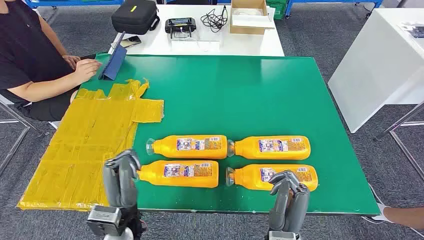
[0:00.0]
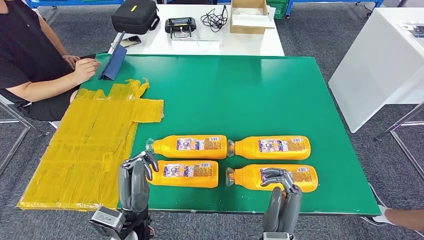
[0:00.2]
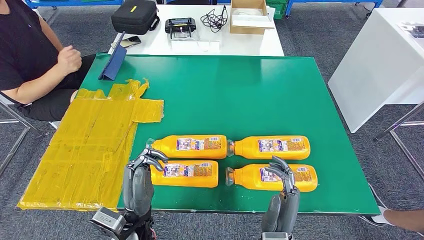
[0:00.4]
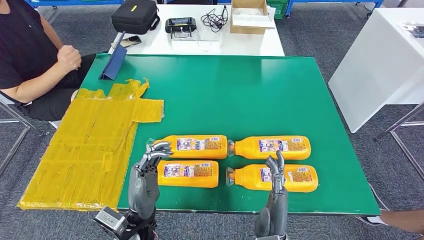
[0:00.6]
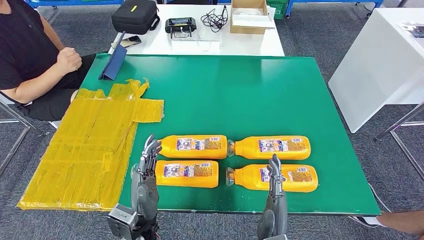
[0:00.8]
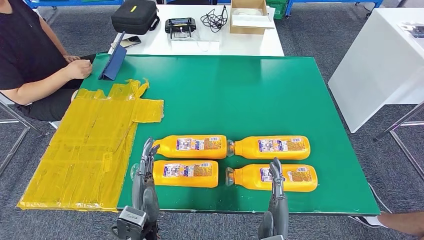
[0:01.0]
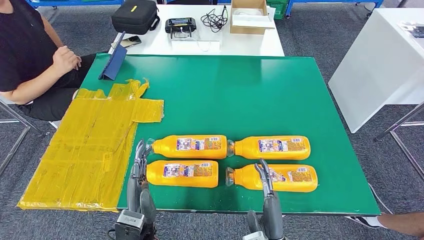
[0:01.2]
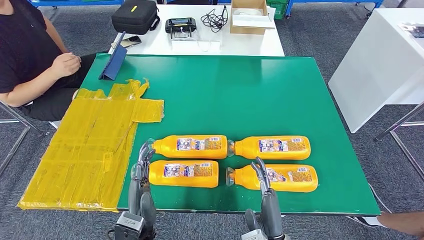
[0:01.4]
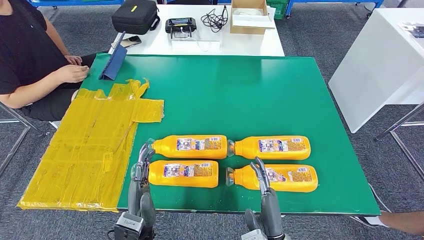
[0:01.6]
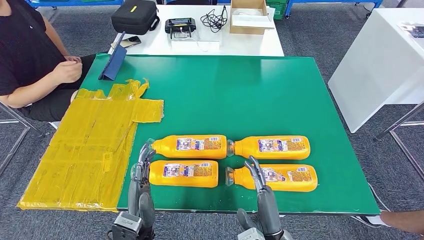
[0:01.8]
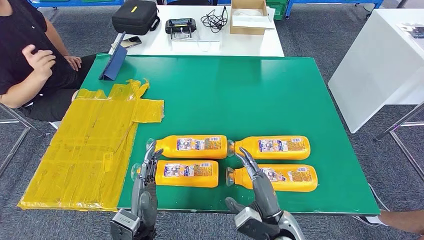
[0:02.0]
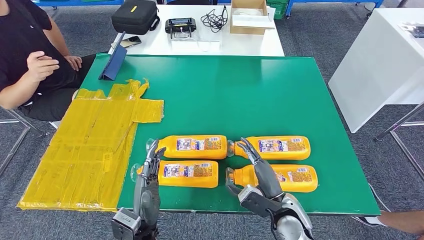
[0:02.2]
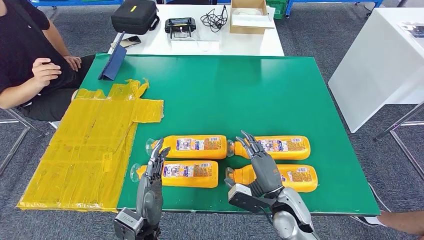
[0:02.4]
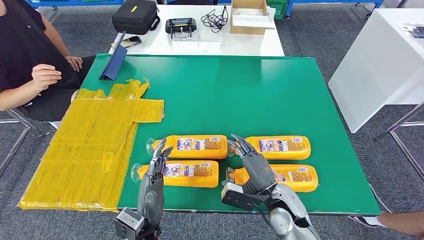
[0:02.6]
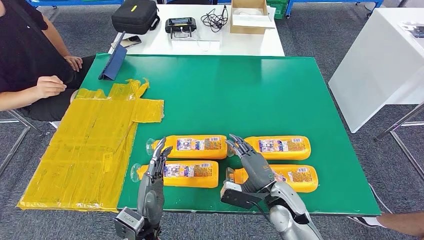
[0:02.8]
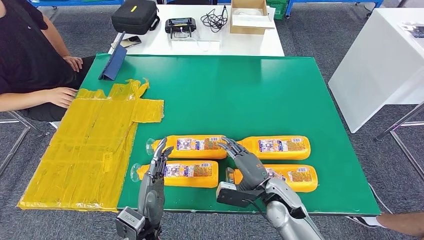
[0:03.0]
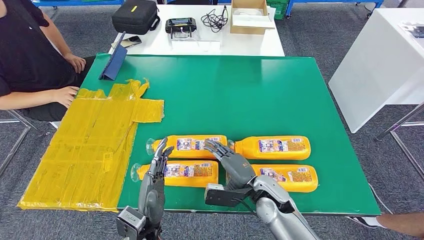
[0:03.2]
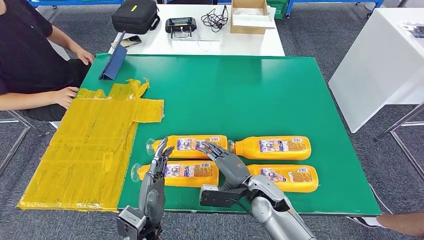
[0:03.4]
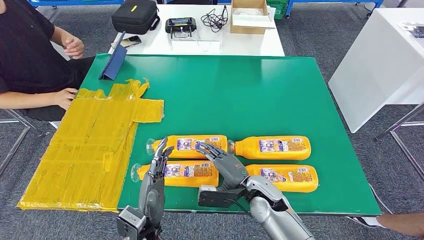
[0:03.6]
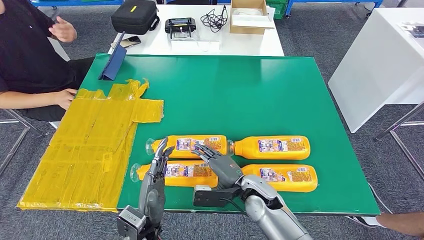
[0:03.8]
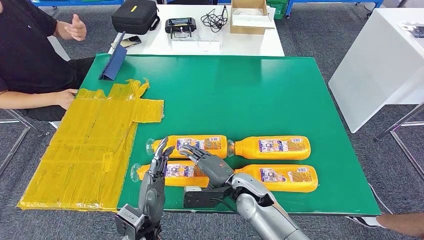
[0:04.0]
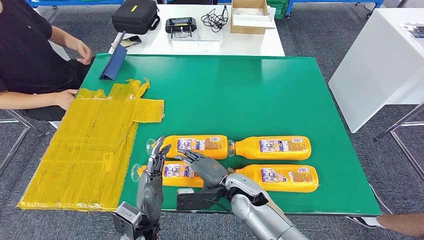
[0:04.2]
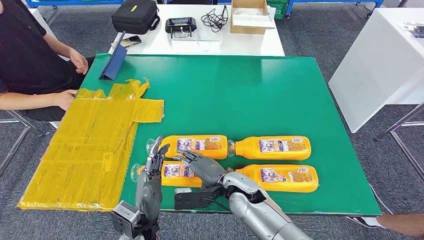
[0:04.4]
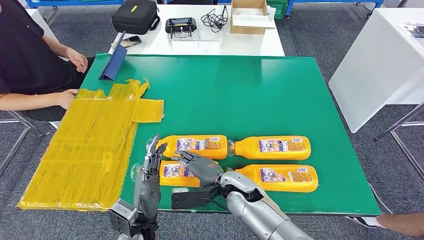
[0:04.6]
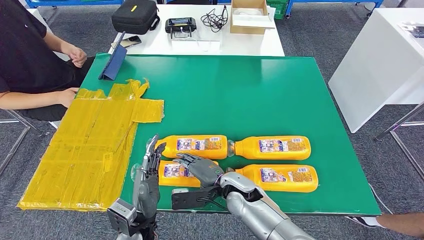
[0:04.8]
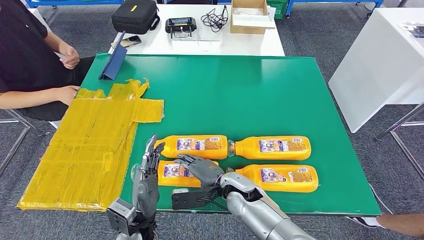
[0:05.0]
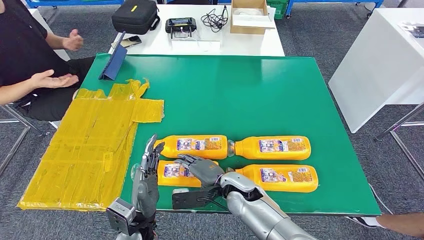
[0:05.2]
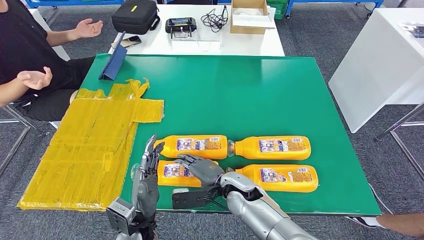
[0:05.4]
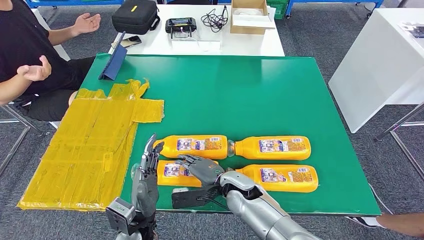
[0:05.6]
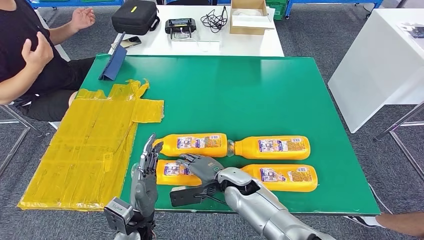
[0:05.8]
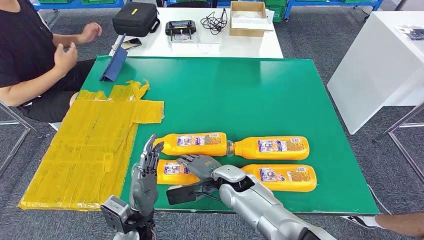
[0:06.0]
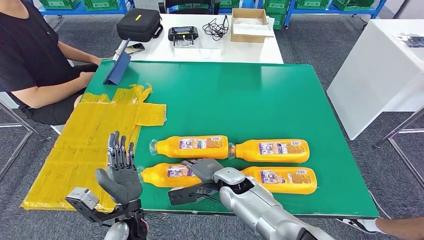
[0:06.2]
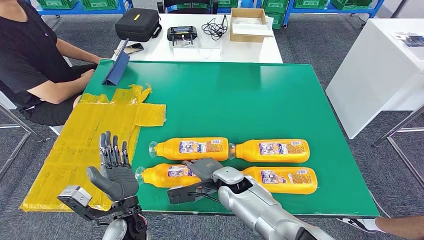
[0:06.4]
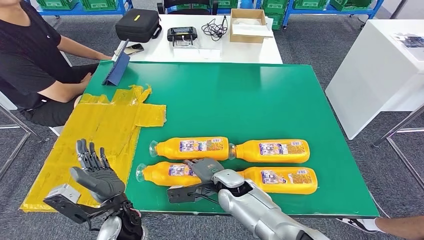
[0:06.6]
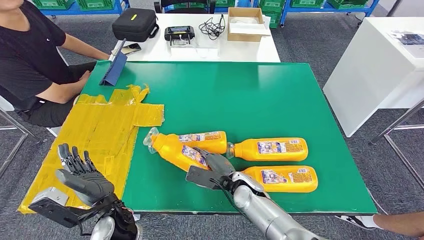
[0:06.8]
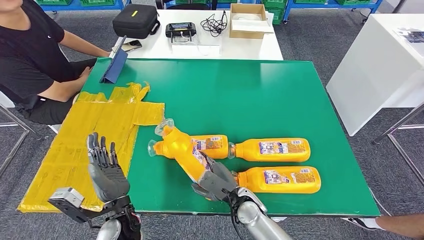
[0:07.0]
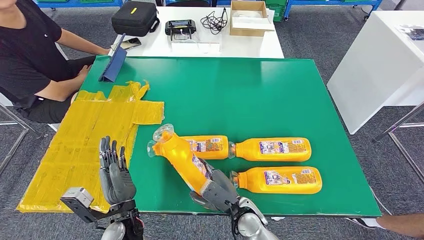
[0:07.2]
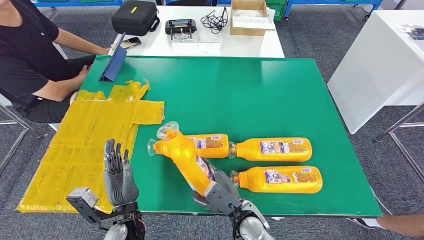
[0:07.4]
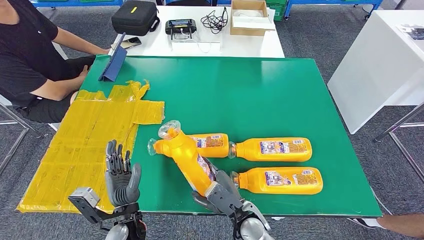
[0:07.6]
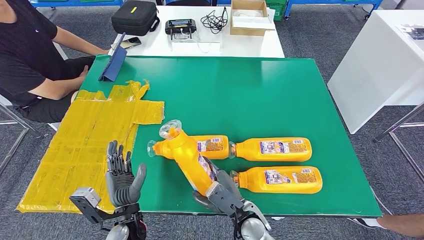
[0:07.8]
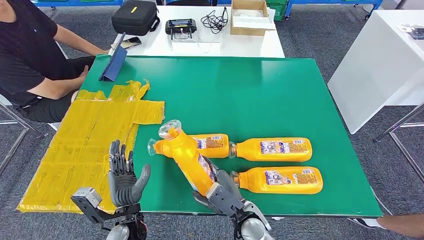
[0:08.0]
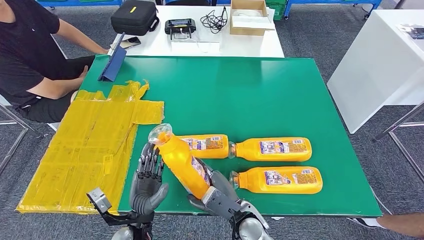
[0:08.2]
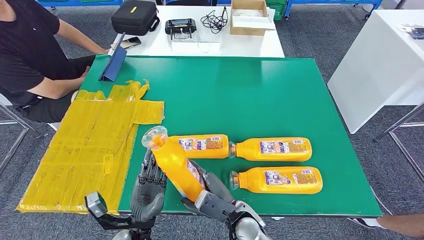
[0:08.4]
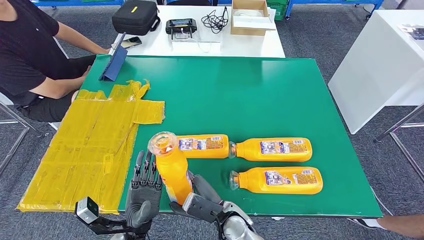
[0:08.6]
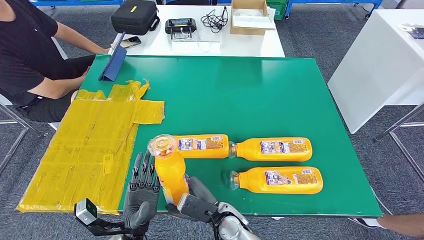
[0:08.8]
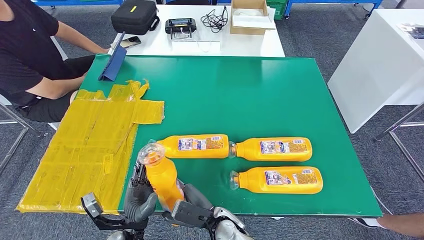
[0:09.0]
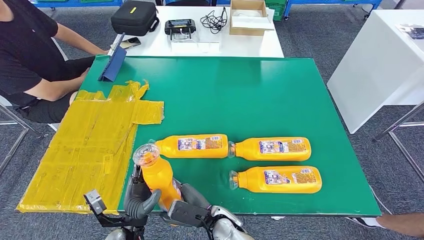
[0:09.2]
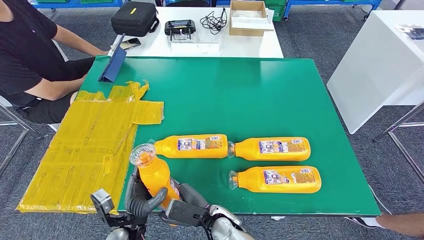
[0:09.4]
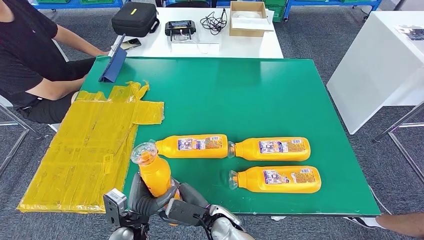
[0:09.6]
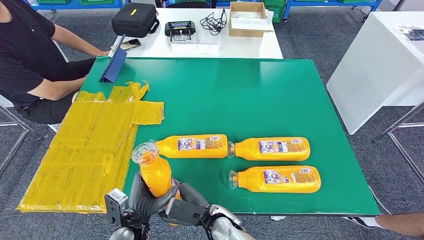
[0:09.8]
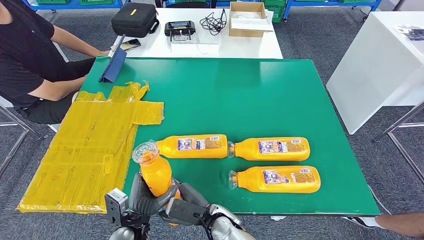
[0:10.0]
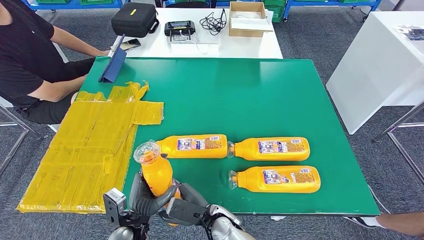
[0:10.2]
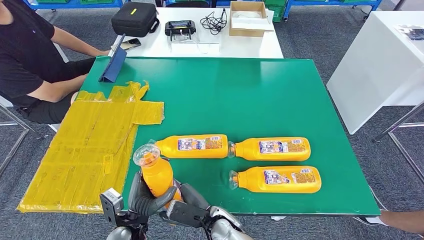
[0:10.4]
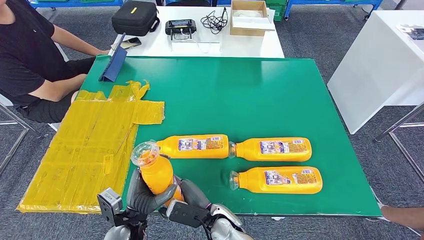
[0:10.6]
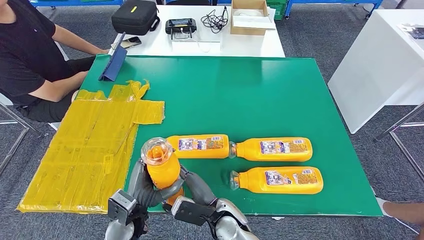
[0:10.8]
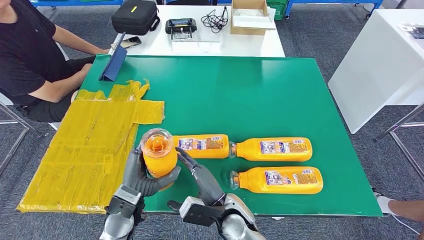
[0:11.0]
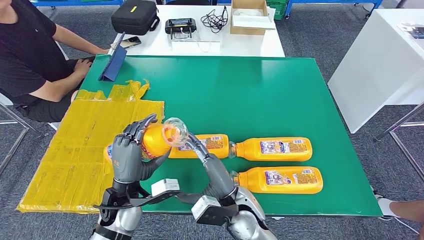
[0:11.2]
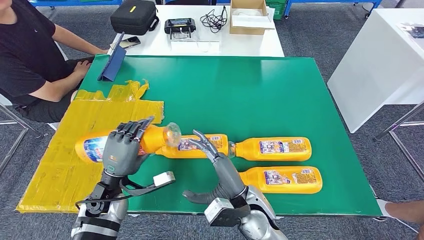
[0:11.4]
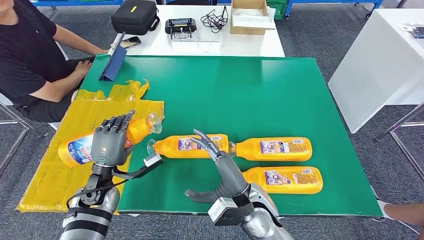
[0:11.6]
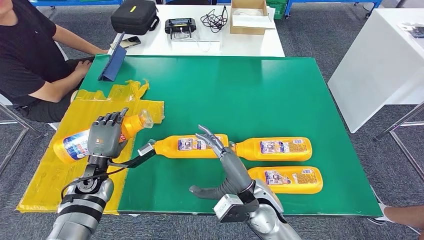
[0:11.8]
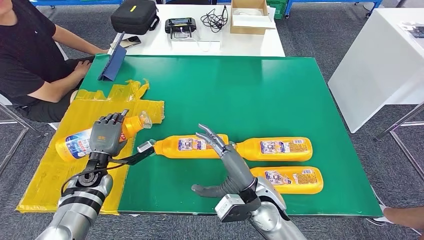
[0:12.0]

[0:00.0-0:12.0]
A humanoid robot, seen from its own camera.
Step, 0:00.0 to 0:07.2: Take the bottle from the table.
0:01.6 to 0:03.0: The right hand goes some 15 cm forward.
0:03.0 to 0:04.4: The right hand shifts approximately 10 cm to the left.
0:07.6 to 0:09.0: The right hand goes approximately 5 cm to the left.

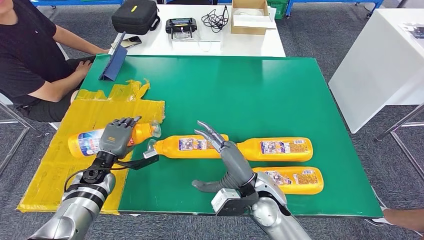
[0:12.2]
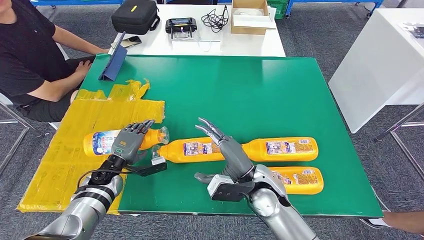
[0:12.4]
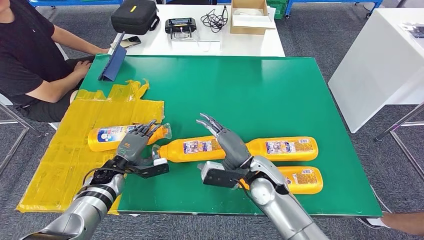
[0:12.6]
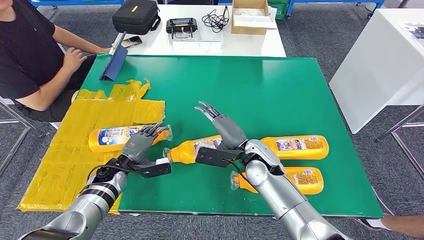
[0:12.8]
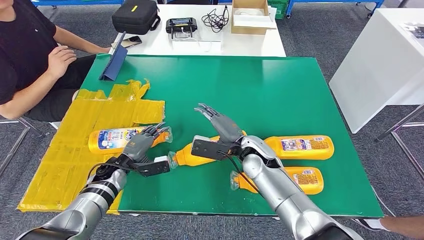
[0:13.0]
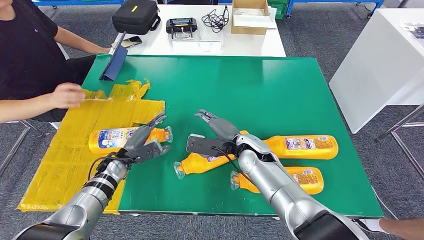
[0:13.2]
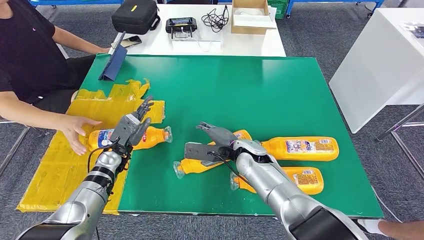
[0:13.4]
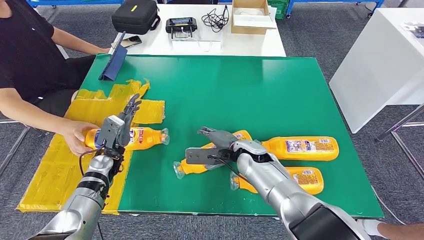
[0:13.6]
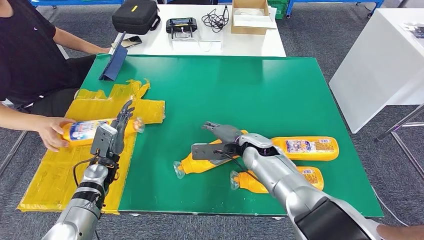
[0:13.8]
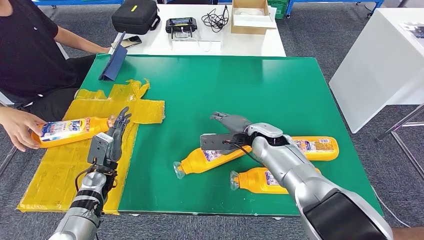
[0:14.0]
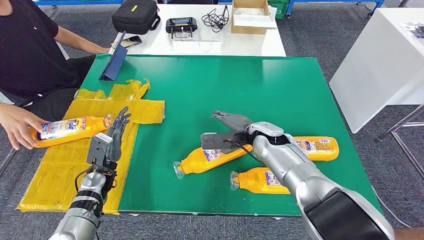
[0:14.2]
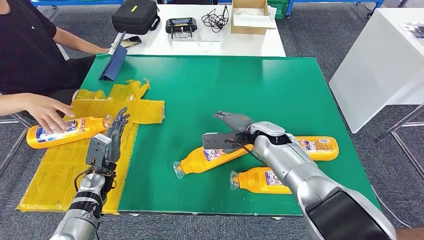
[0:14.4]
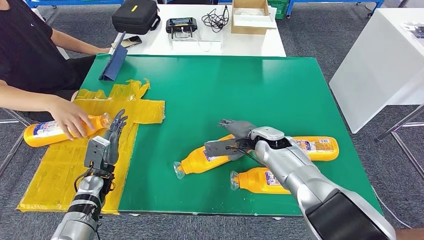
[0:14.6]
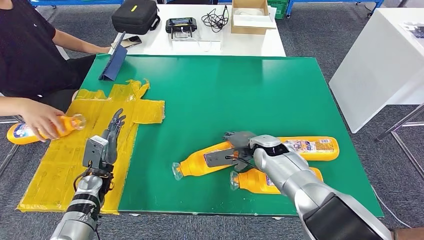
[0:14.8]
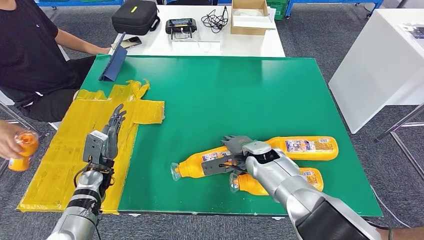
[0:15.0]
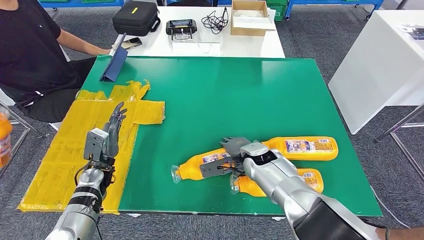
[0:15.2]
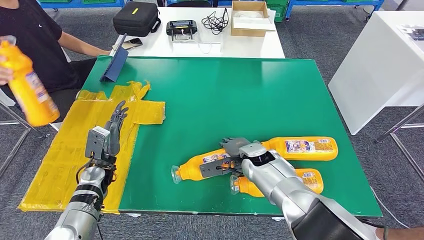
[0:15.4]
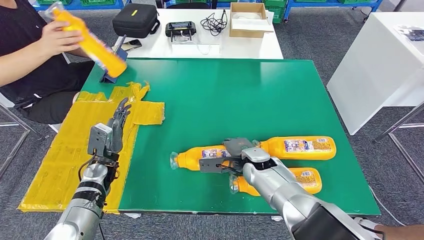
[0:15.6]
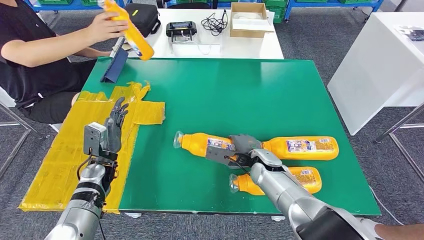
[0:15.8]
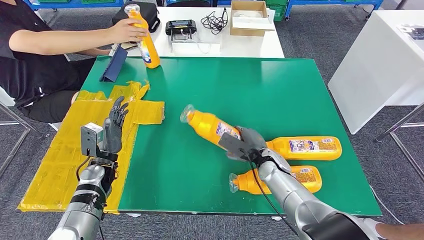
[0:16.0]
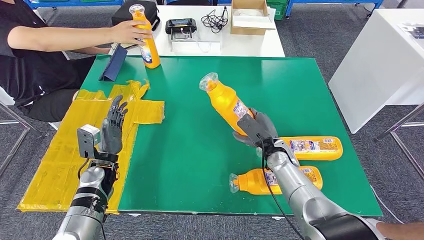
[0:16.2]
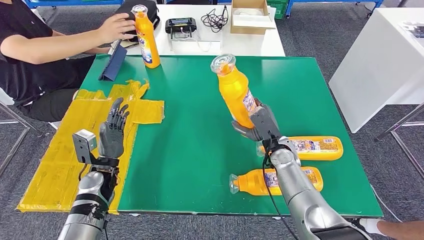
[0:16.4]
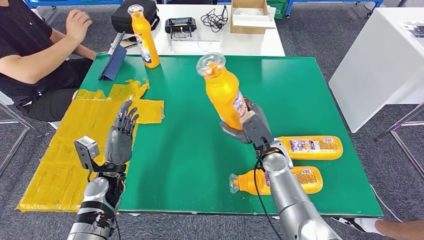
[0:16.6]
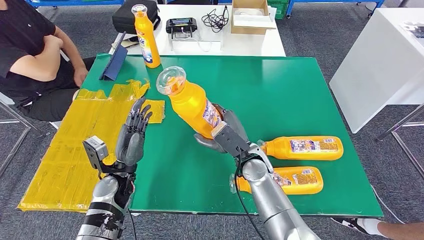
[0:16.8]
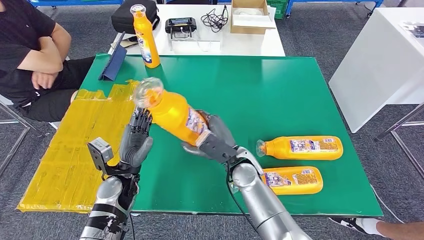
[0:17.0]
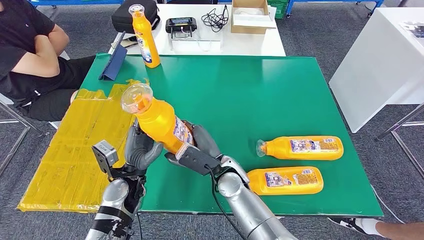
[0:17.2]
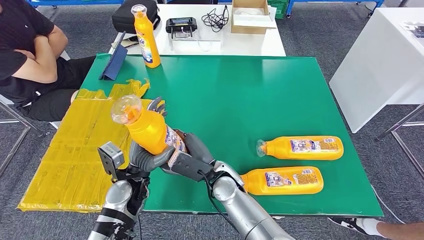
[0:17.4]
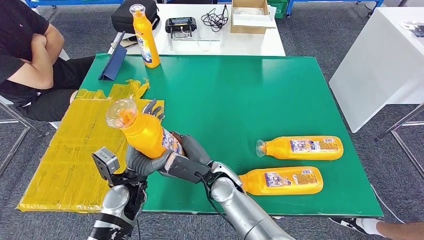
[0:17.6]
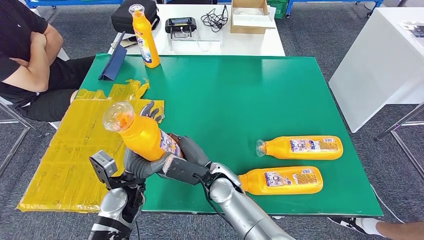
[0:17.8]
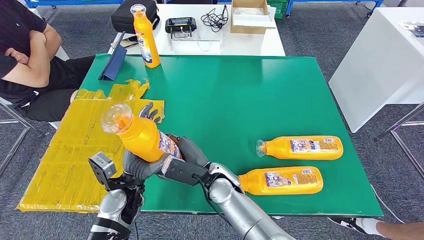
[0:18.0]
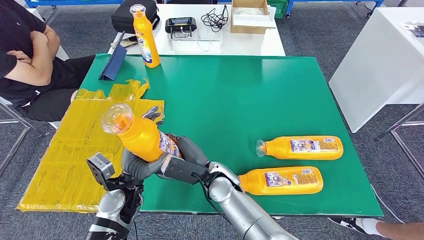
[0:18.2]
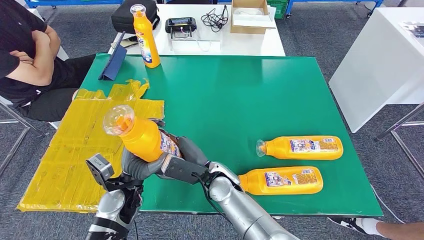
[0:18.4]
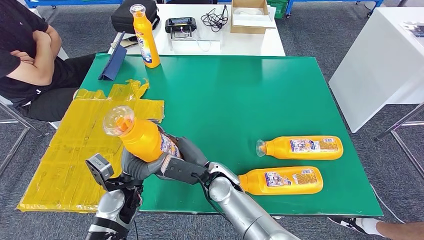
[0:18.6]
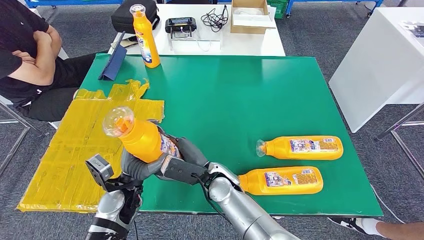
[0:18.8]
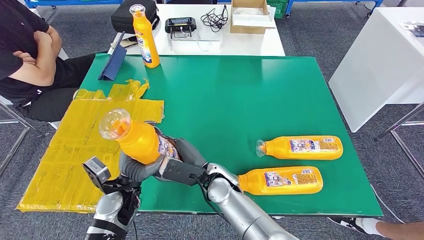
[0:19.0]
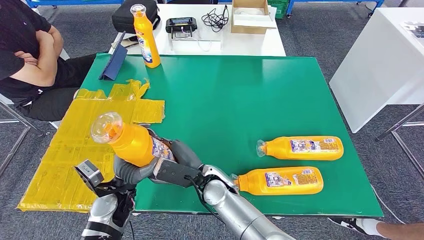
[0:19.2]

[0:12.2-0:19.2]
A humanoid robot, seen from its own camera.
Step, 0:14.4 to 0:16.6: Pick up the bottle from the table.
0:17.8 to 0:19.2: The hands move only a little.
